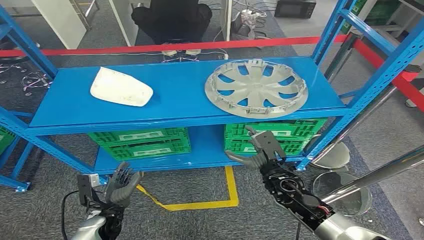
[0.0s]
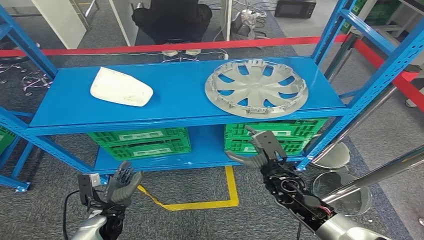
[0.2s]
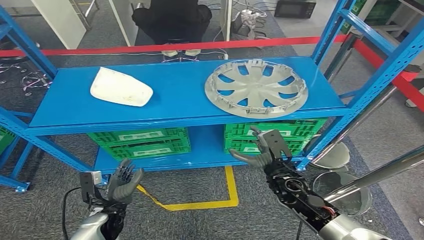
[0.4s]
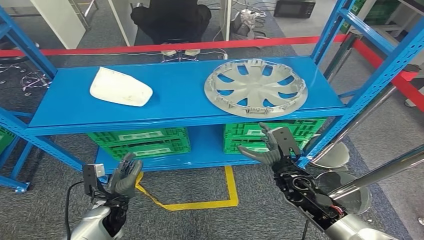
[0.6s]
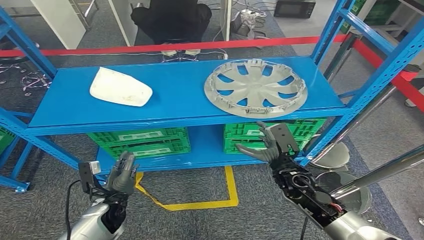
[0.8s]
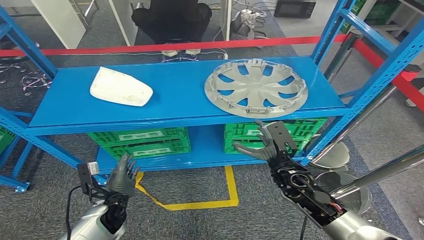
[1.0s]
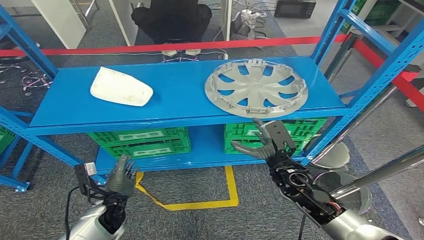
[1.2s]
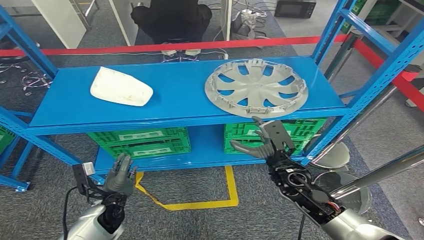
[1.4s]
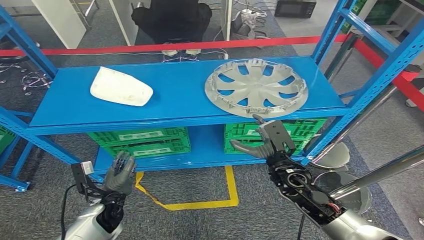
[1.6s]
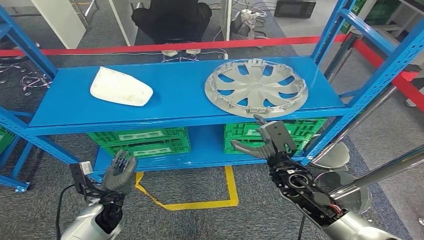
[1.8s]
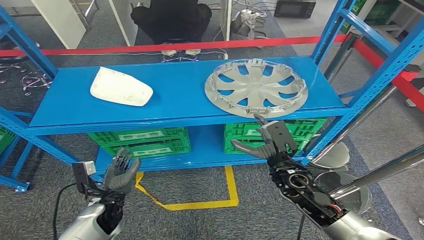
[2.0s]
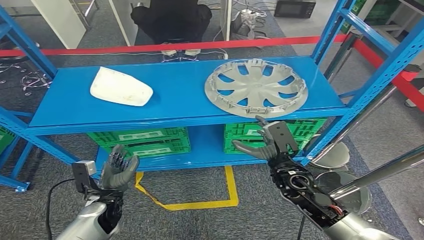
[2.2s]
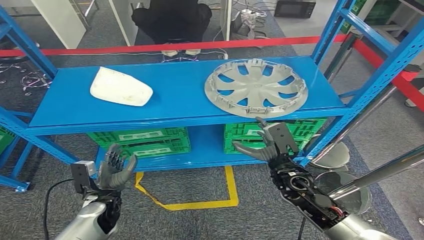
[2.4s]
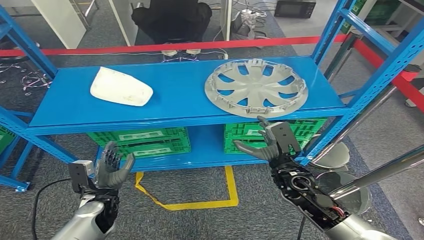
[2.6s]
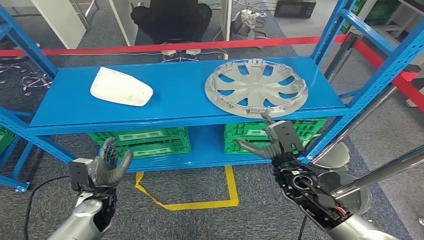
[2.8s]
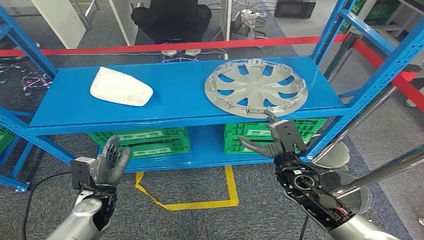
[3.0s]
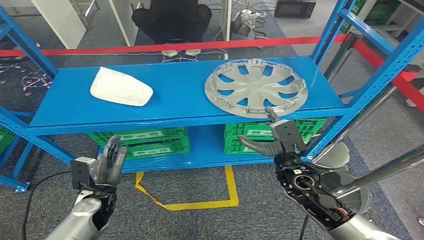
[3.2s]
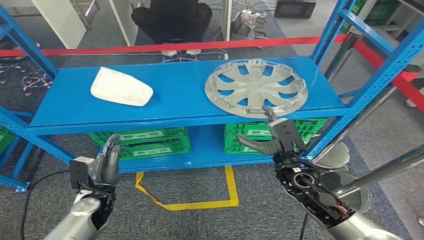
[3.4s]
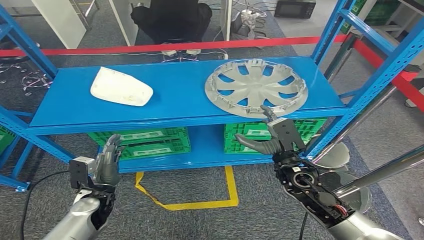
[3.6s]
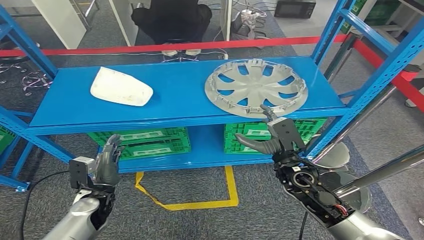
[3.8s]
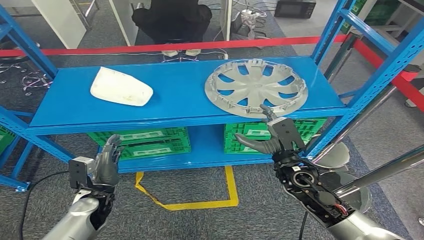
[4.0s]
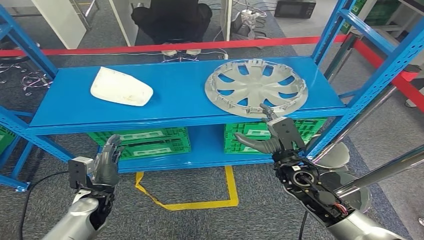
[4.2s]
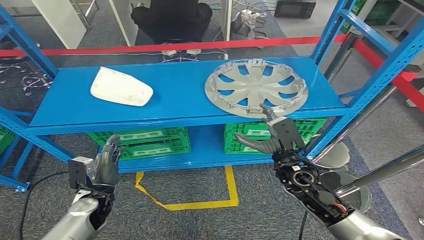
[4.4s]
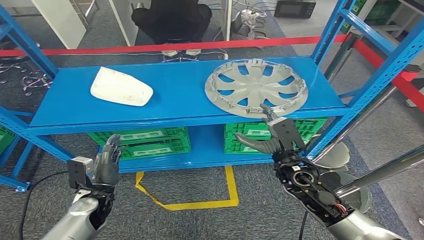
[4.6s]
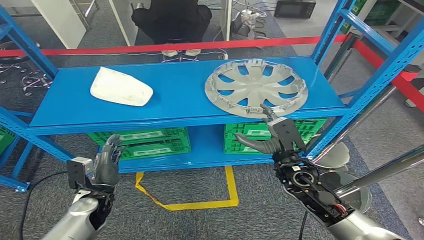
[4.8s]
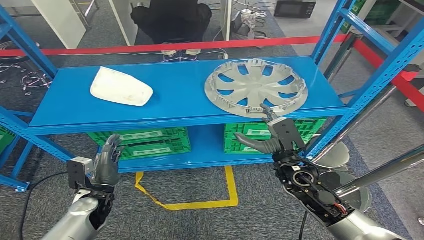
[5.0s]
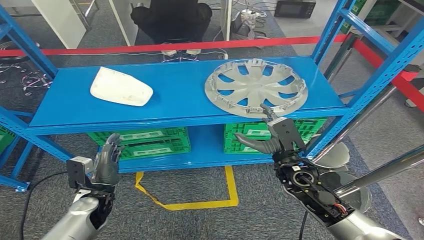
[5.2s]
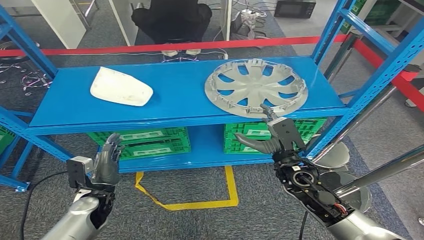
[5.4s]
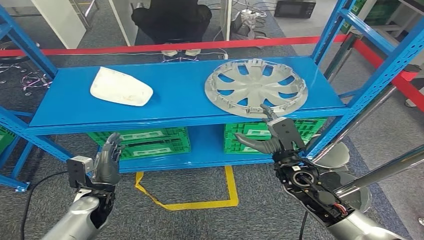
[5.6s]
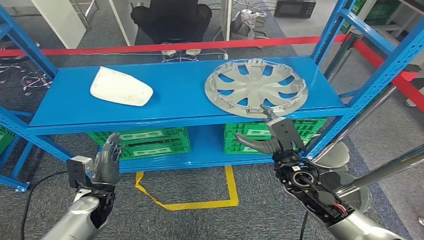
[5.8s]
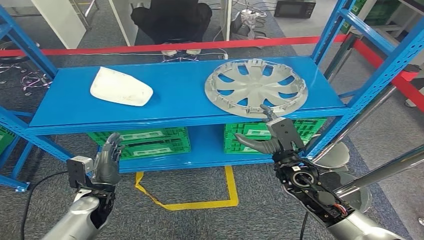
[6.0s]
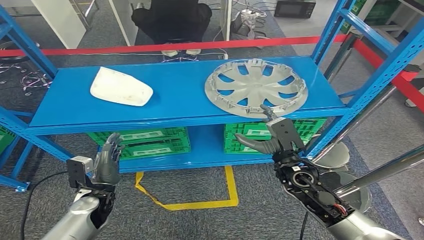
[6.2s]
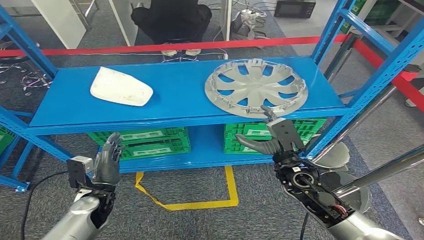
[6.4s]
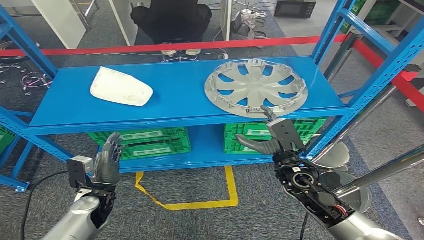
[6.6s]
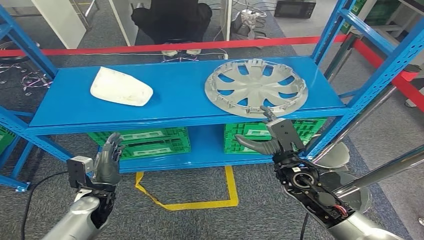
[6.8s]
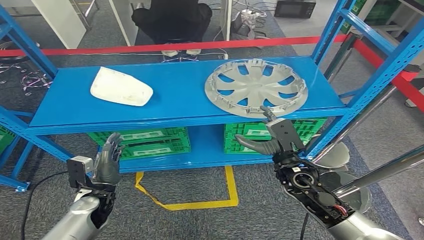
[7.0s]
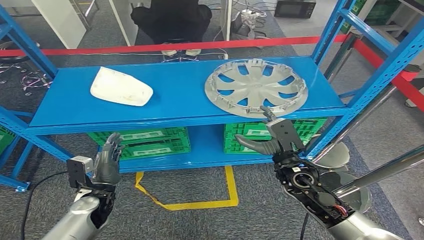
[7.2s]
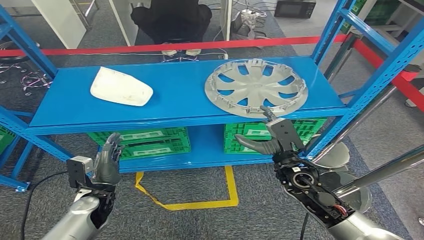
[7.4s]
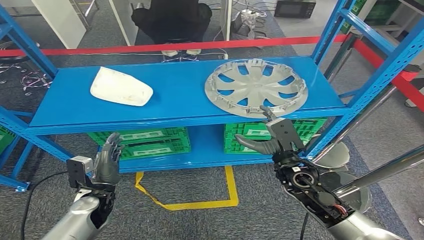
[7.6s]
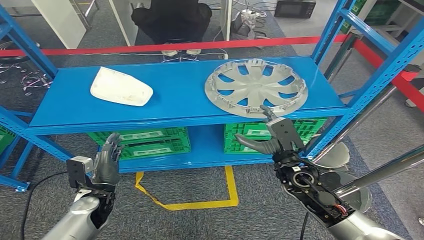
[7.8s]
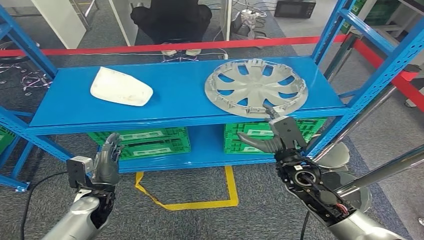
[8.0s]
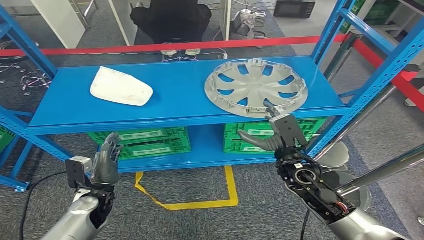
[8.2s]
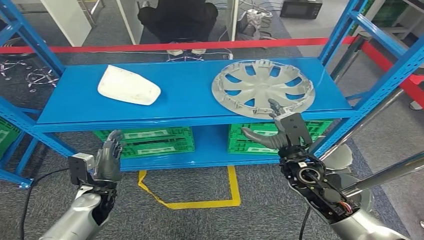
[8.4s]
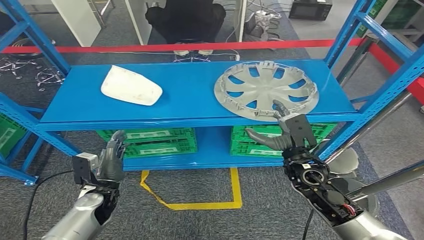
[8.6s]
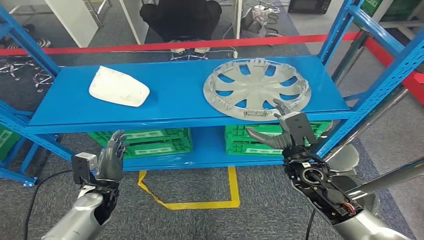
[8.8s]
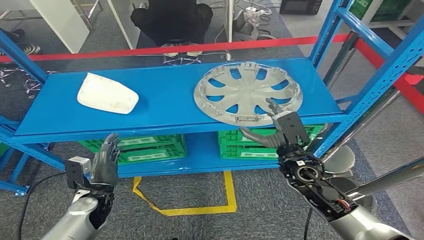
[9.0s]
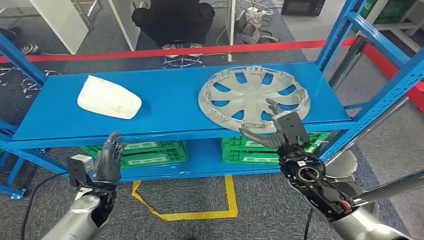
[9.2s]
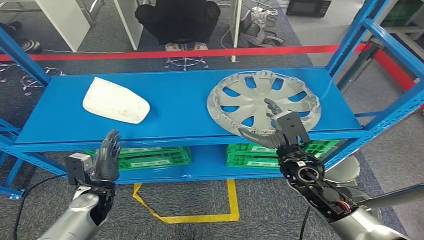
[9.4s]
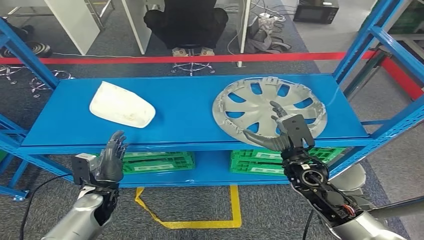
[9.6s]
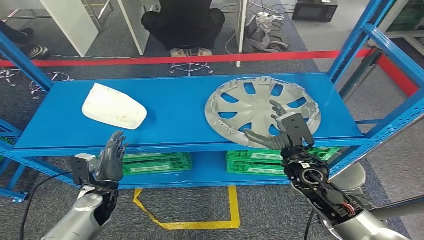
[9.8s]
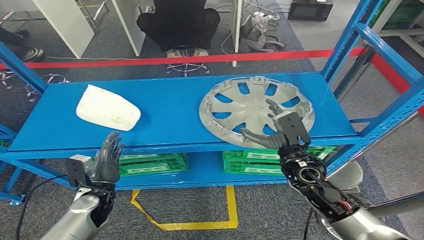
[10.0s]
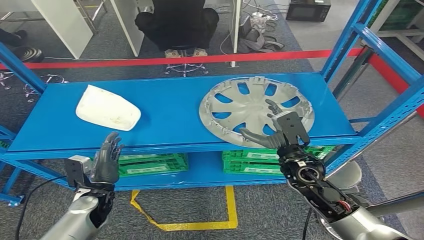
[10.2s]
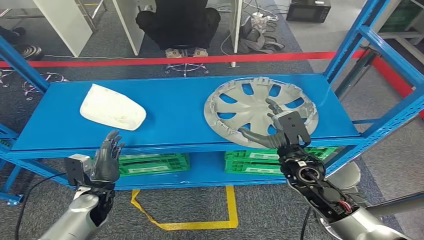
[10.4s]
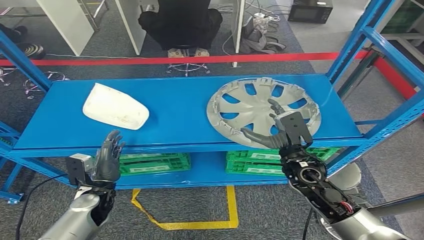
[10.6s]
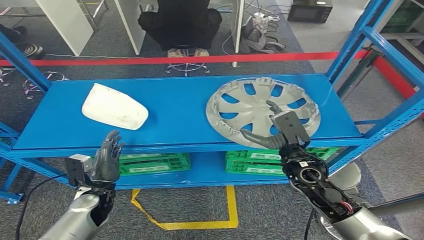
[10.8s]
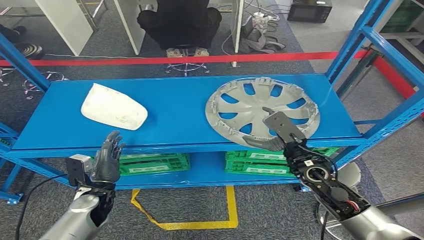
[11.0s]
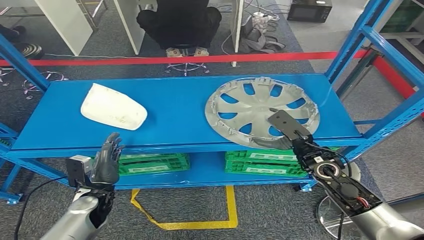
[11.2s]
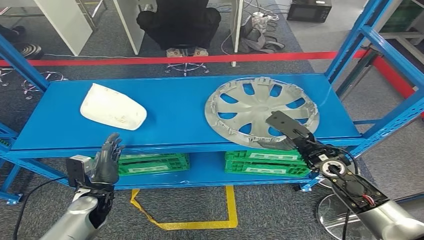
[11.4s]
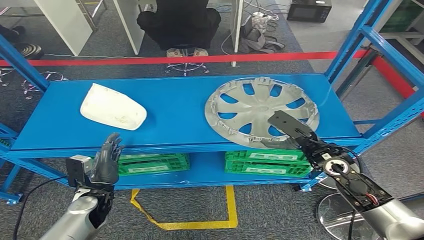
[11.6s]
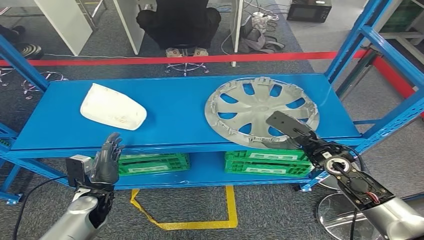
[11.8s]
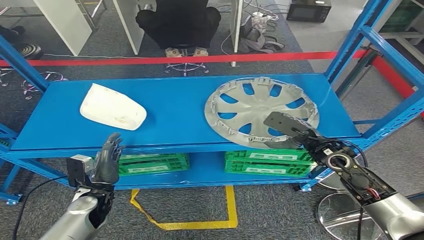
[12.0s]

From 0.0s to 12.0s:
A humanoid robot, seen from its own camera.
From 3.0s to 4.4s: The hands stay close to where they were, moving slightly.
From 4.4s to 7.6s: The two hands keep their place.
From 10.4s to 12.0s: The right hand heads to the right, covering about 10 cm.

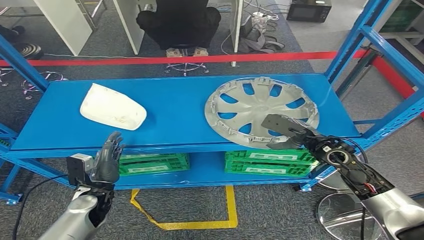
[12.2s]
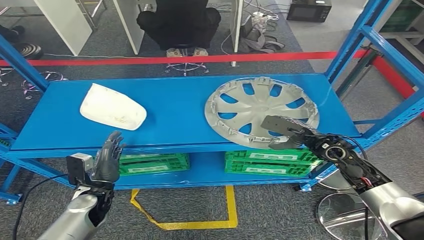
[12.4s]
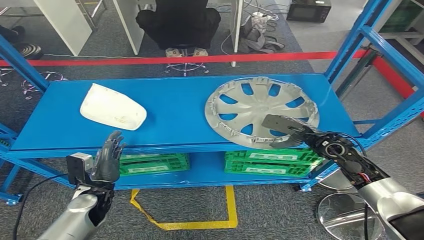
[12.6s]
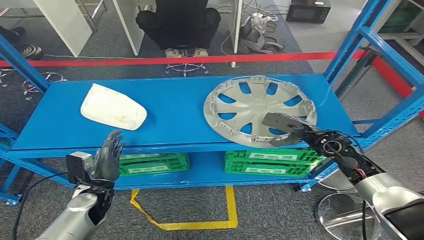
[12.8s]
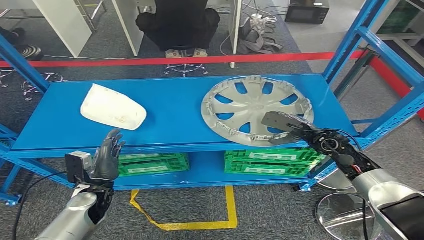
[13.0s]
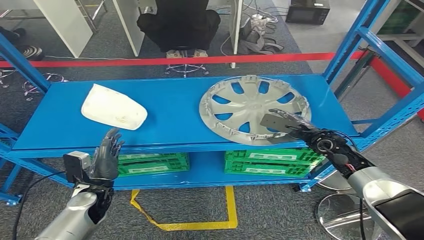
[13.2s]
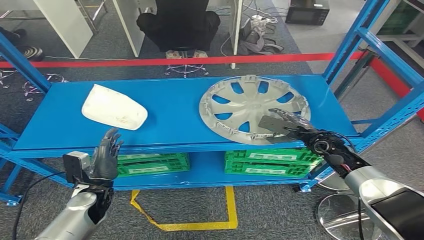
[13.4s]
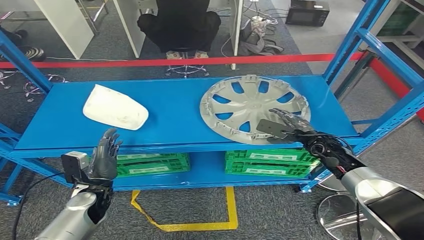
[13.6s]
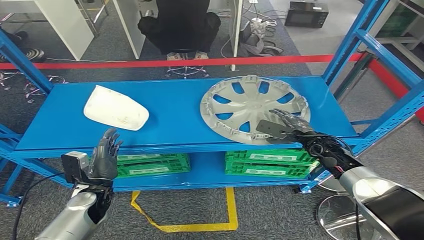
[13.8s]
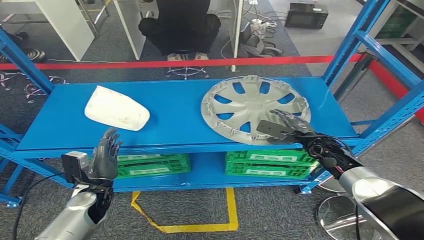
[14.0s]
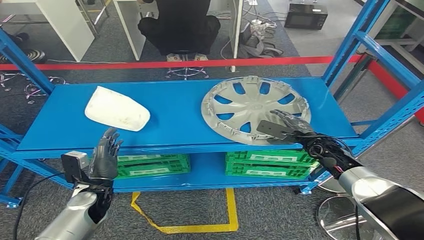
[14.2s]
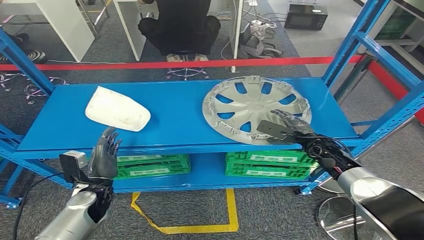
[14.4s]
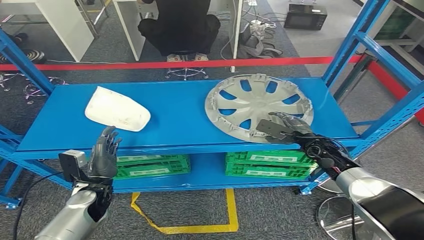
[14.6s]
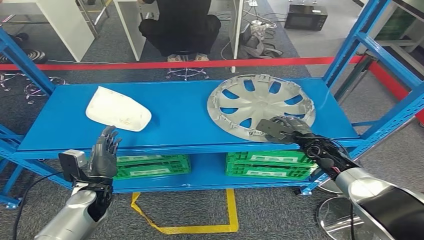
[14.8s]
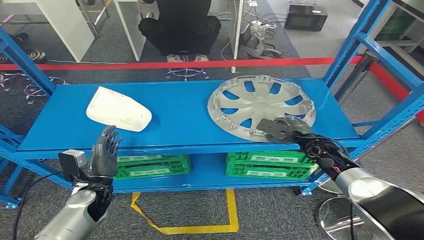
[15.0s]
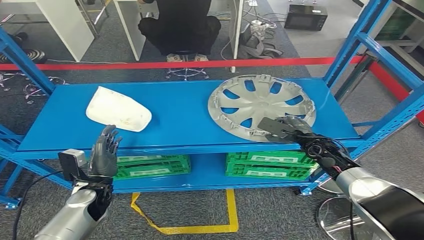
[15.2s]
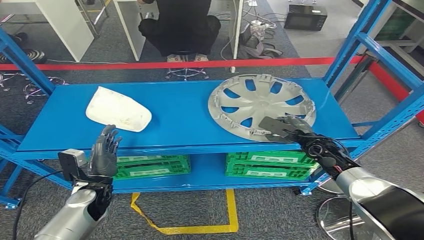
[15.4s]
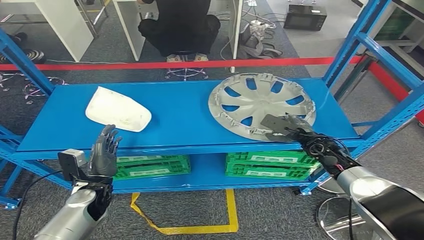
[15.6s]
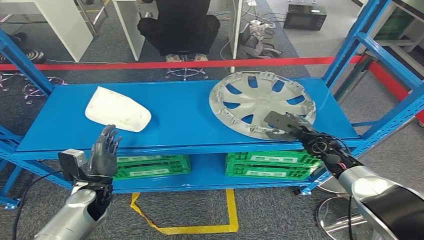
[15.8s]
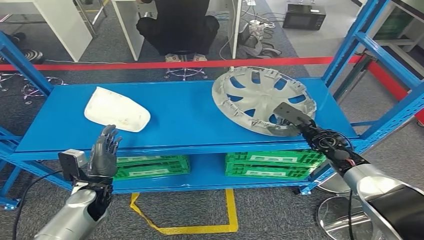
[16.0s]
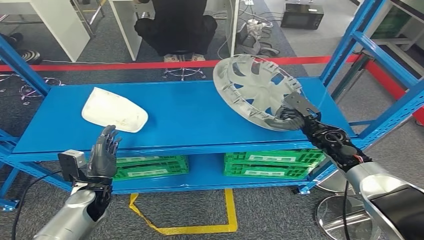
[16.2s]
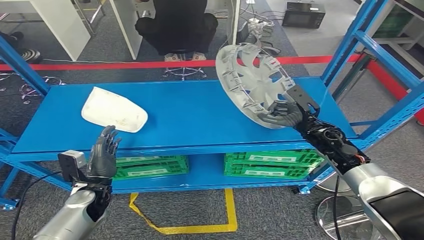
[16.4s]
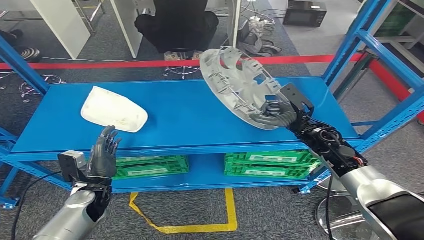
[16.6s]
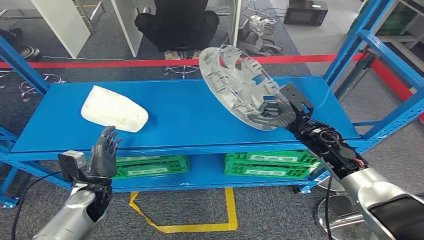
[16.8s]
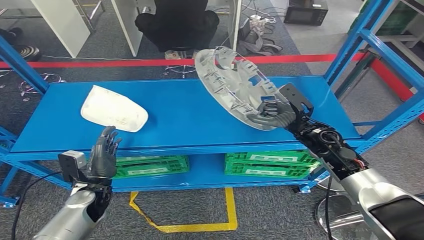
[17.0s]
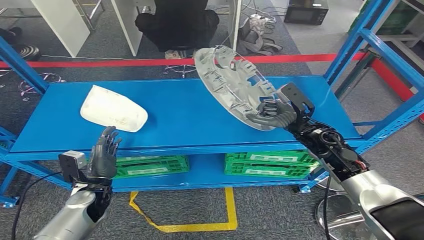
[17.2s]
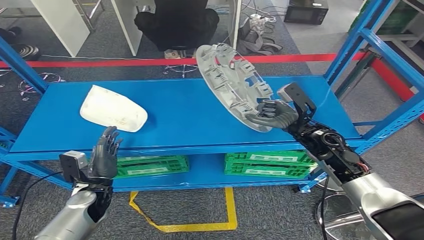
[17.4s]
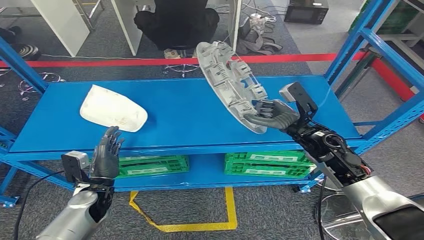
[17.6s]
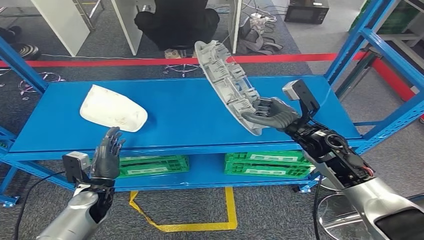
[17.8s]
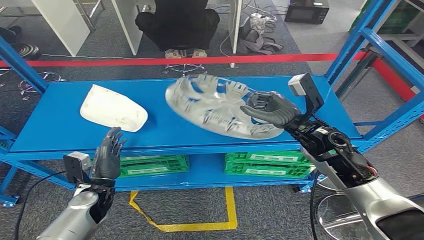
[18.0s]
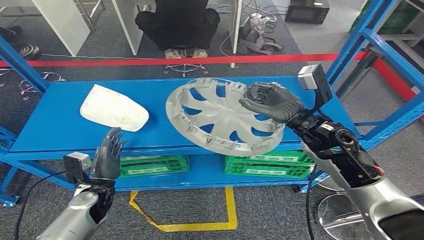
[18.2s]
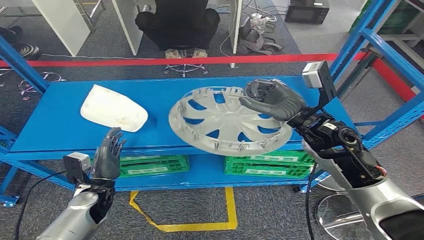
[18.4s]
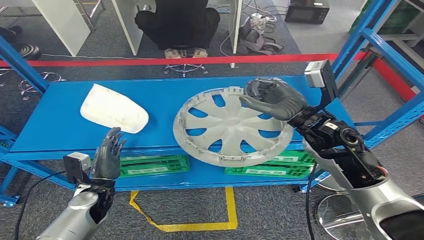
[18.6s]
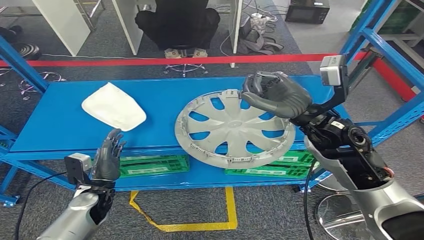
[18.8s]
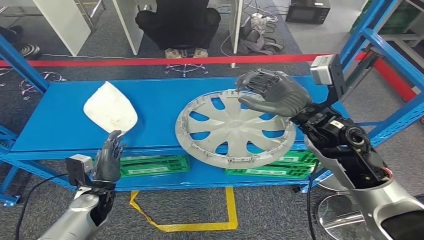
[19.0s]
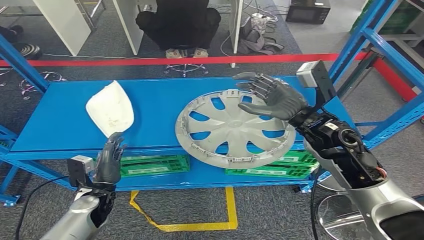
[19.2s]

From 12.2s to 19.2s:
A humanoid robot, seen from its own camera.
From 12.2s to 13.6s: The right hand shifts about 5 cm downward.
From 13.6s to 15.0s: The hands make only small movements.
